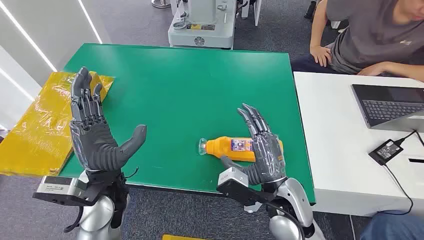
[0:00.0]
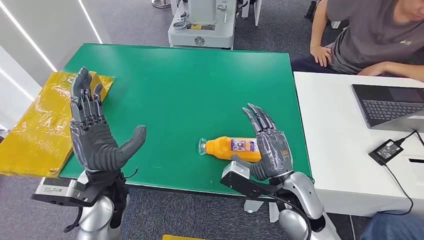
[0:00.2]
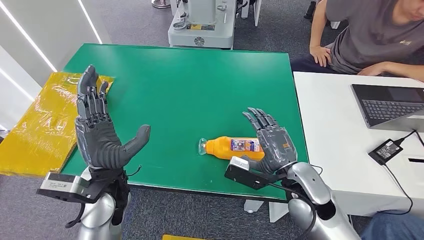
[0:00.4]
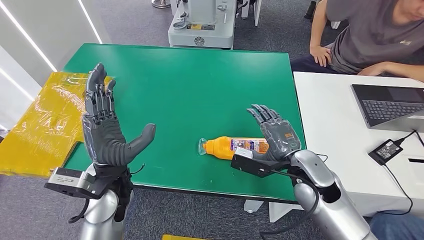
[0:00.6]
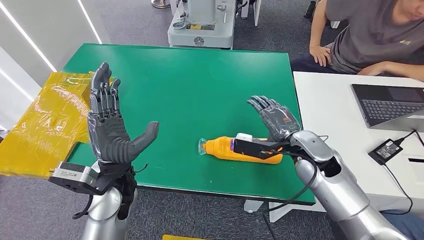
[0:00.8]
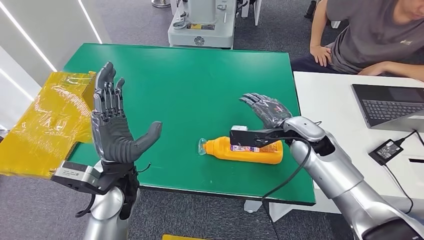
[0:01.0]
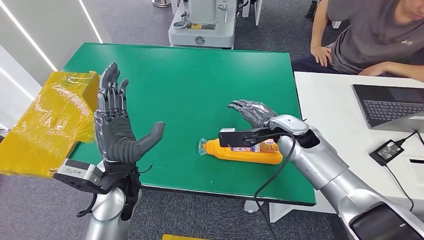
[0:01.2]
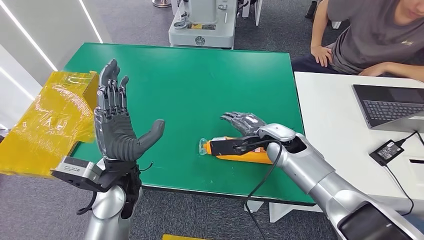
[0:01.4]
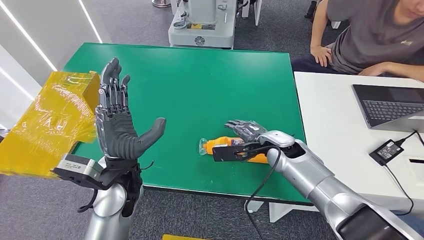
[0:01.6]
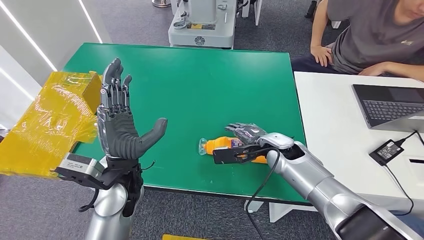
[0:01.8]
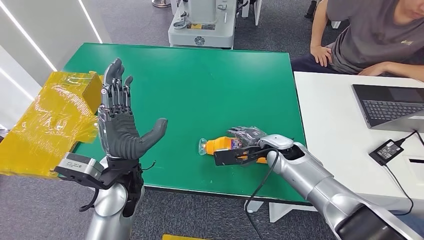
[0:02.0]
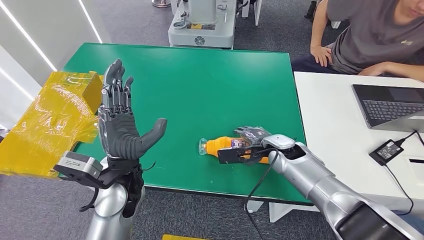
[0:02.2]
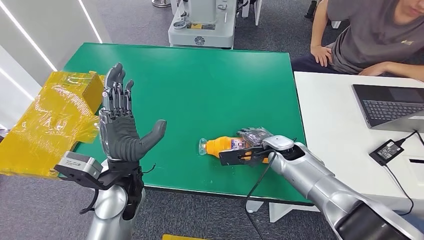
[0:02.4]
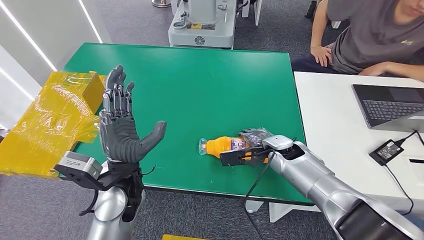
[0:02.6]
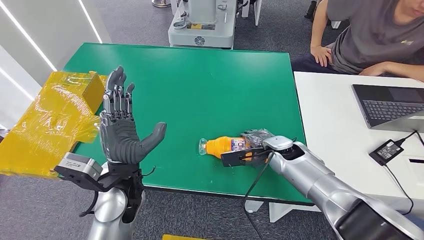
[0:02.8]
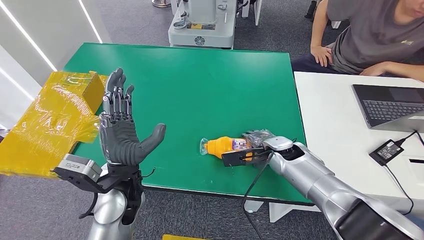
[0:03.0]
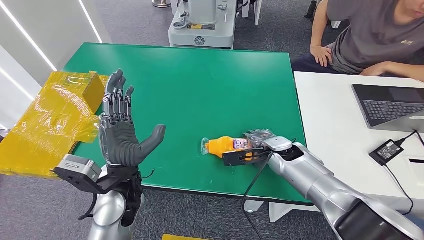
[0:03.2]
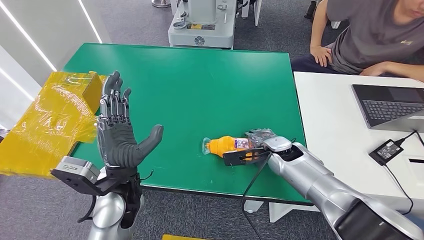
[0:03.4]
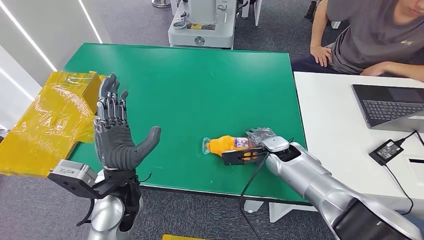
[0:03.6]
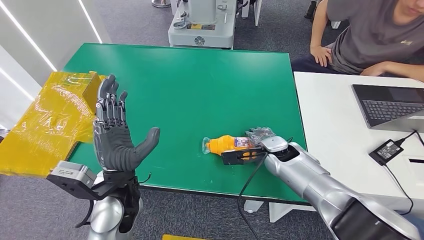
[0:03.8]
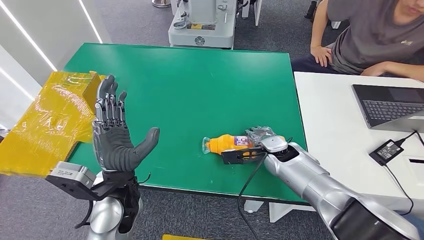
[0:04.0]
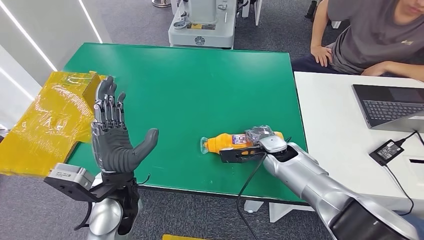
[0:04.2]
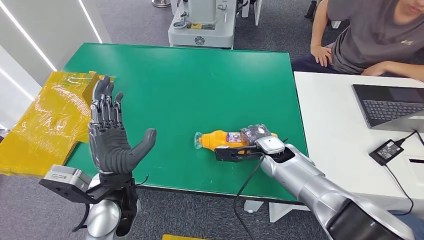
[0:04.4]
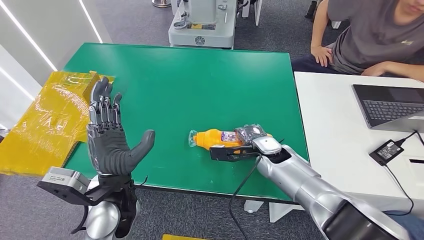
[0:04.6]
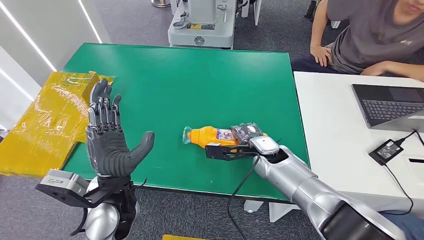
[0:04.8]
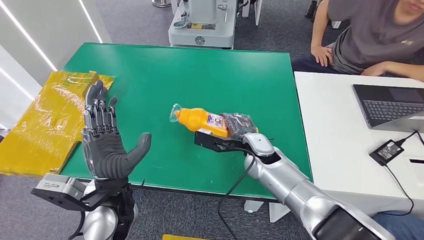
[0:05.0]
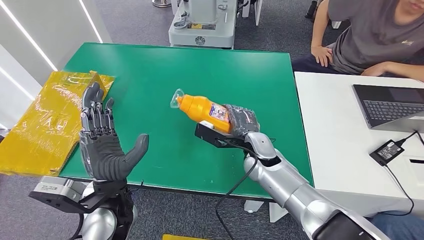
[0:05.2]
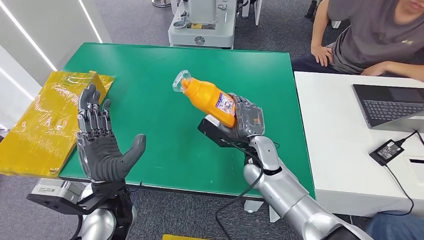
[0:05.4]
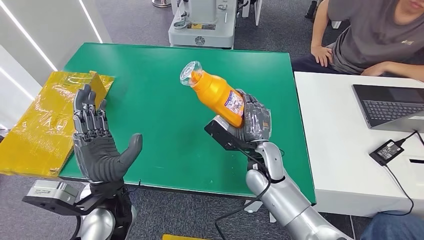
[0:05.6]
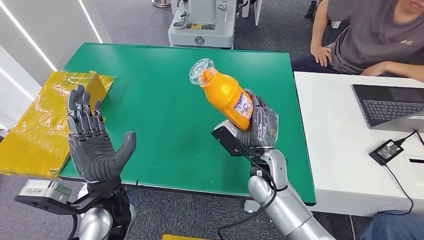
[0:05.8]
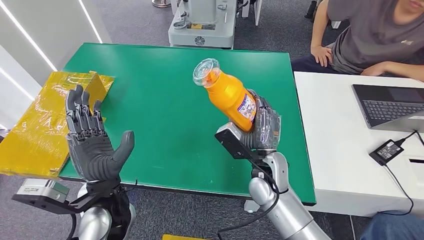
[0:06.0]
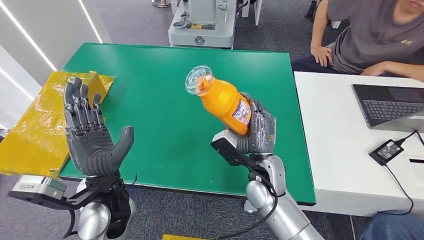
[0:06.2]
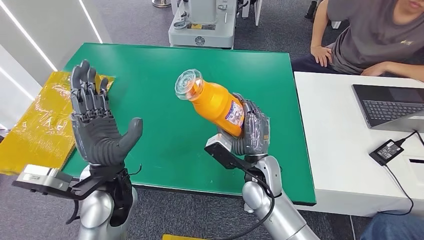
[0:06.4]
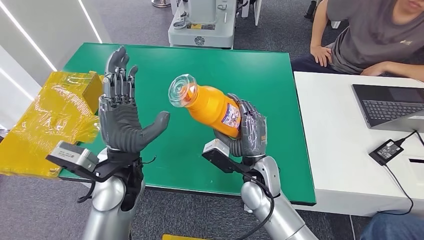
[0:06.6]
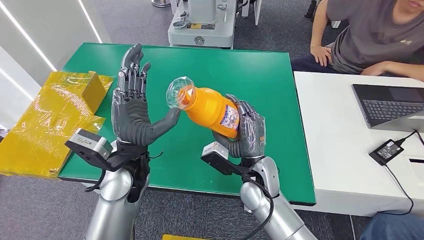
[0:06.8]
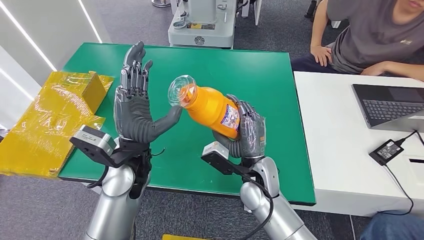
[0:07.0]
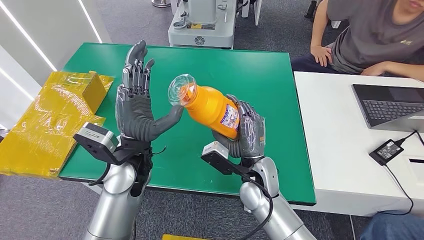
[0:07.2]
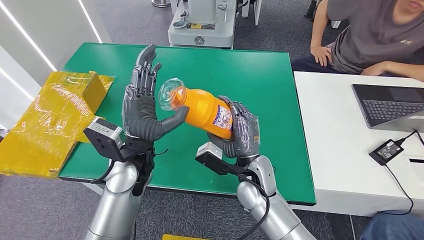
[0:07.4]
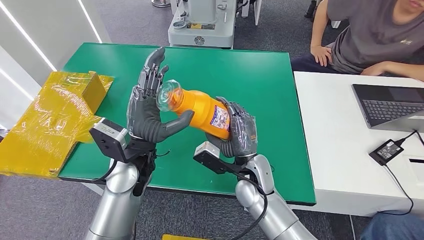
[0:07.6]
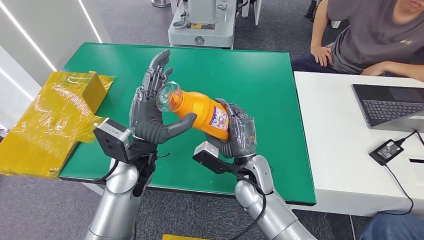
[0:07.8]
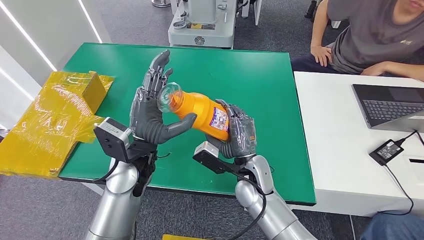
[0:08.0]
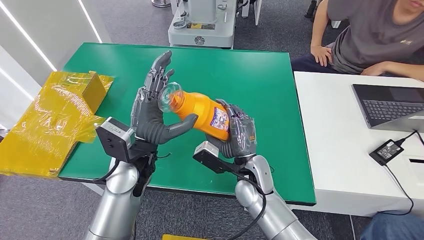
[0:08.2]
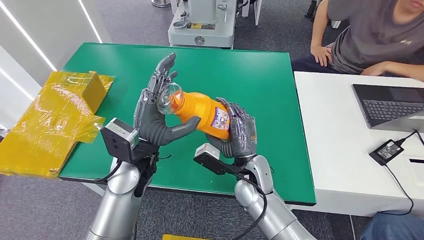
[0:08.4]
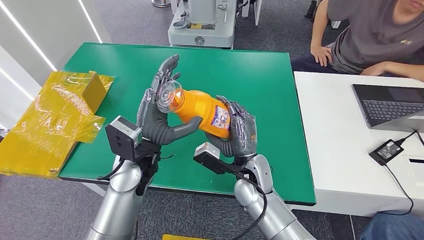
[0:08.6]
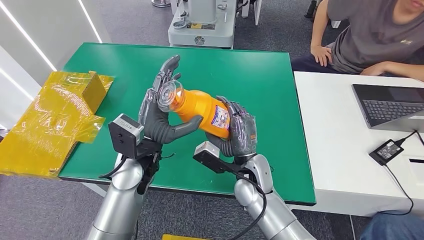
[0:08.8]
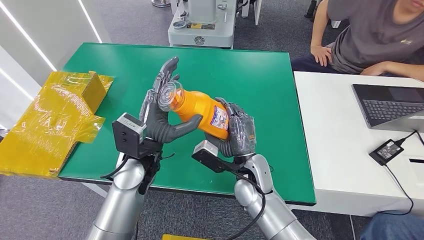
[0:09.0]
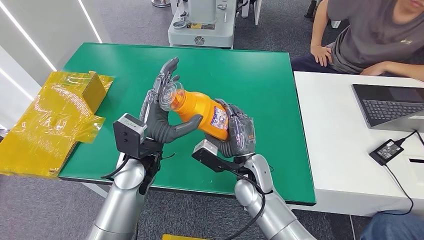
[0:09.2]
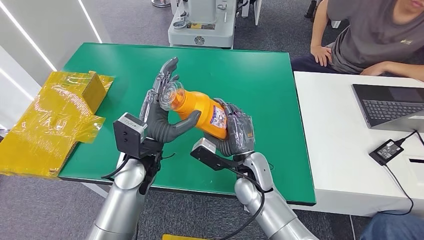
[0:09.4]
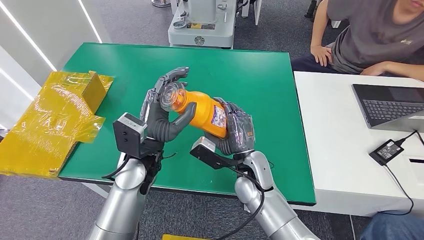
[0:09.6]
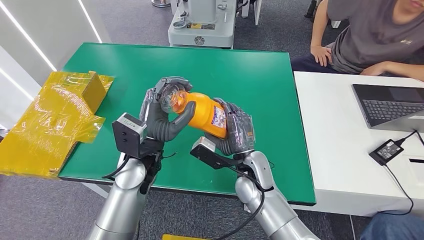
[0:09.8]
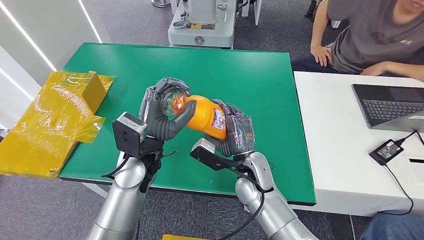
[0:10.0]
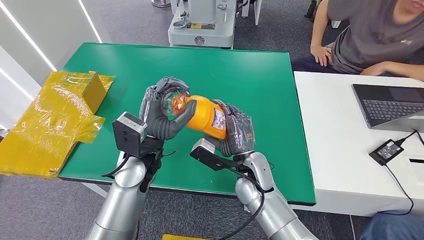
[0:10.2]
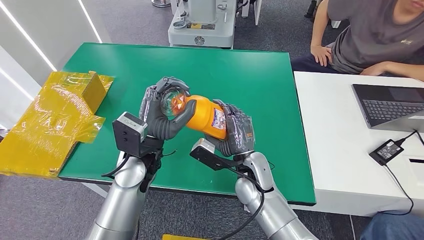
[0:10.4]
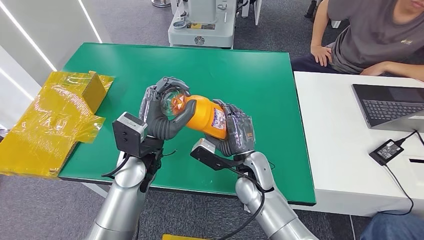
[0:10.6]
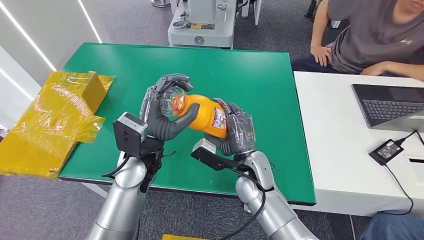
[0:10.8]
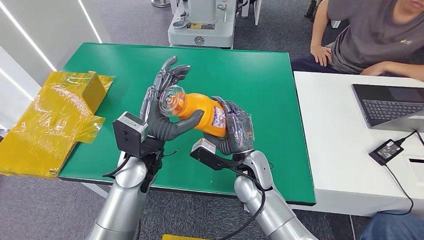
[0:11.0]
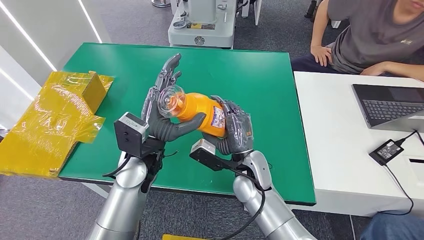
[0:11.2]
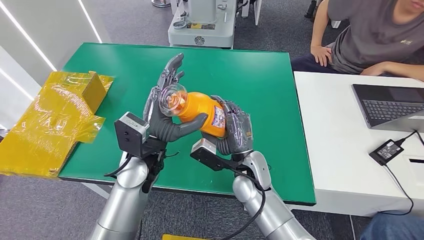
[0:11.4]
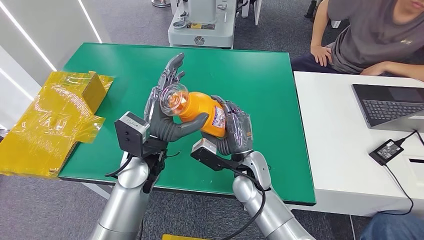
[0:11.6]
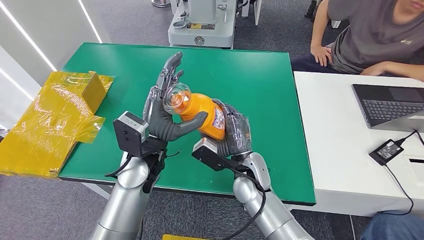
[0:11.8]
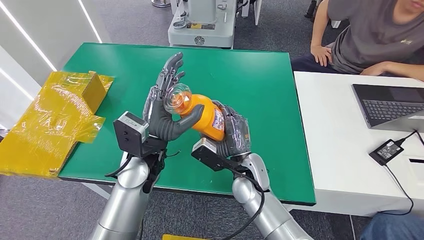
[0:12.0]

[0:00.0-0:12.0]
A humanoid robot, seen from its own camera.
Step, 0:00.0 to 0:06.2: Pick up the bottle from the table.
0:03.0 to 0:04.4: There are only small adjustments of the hands.
0:04.4 to 0:06.0: The right hand moves to the left and backward, some 10 cm.
0:07.6 to 0:12.0: The hands move only a little.

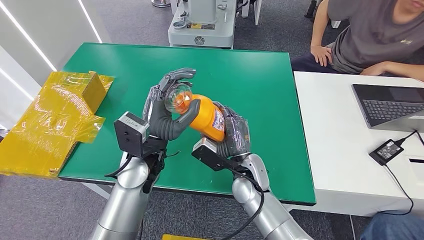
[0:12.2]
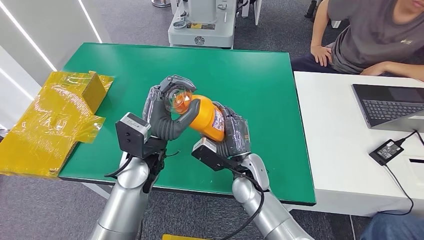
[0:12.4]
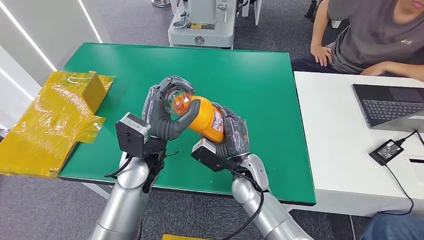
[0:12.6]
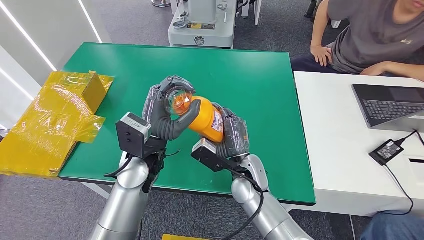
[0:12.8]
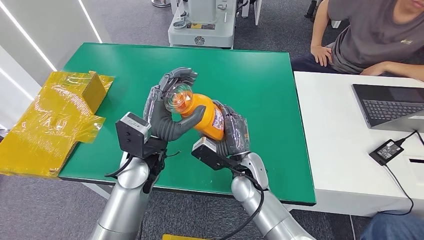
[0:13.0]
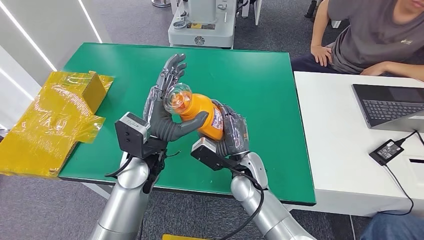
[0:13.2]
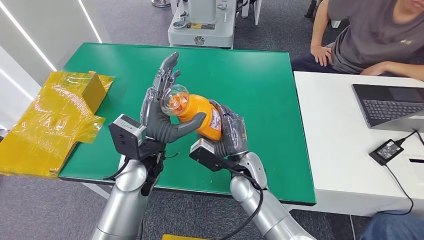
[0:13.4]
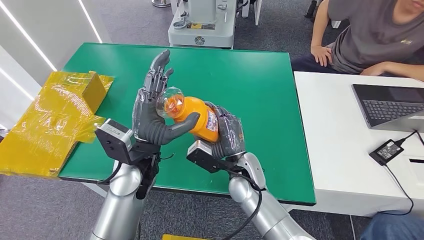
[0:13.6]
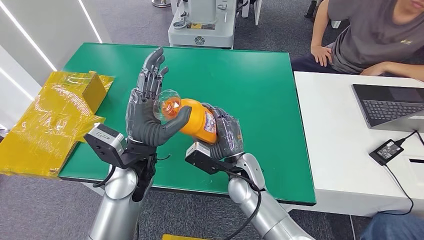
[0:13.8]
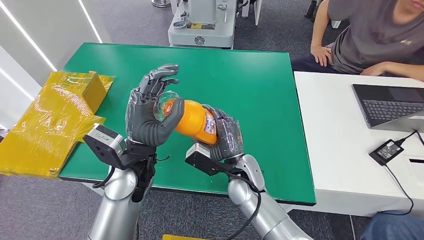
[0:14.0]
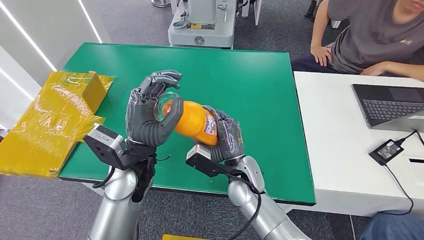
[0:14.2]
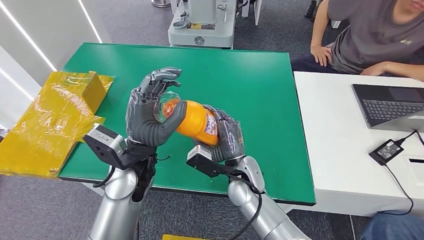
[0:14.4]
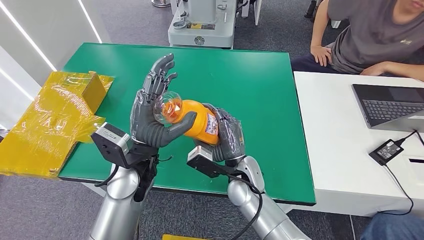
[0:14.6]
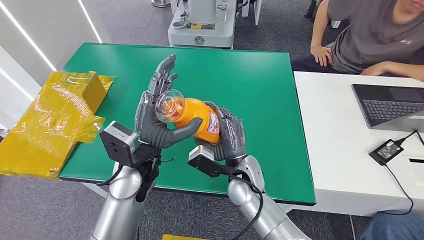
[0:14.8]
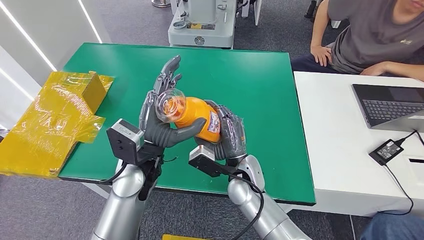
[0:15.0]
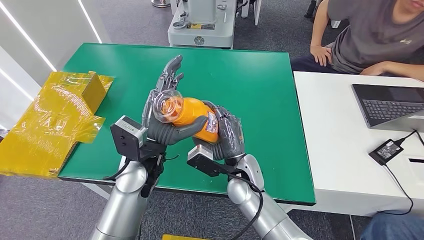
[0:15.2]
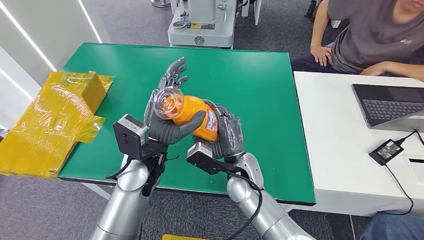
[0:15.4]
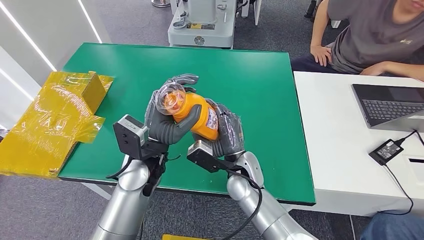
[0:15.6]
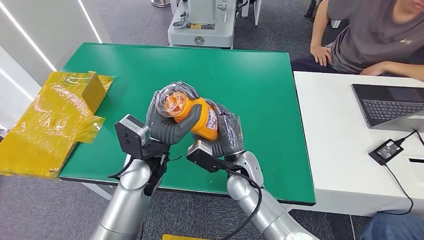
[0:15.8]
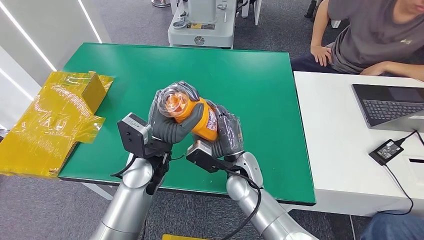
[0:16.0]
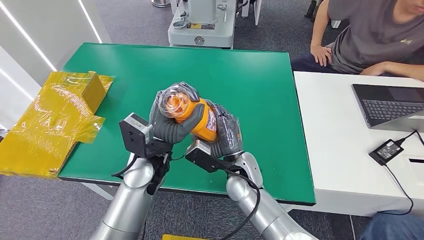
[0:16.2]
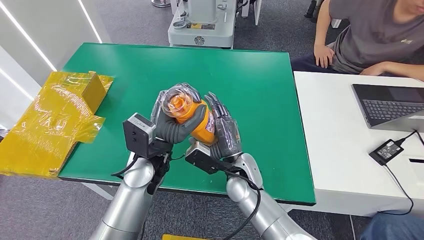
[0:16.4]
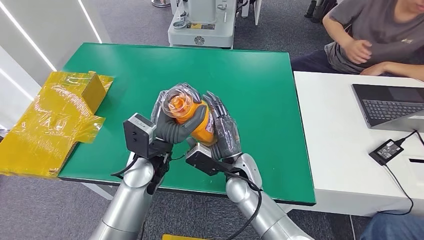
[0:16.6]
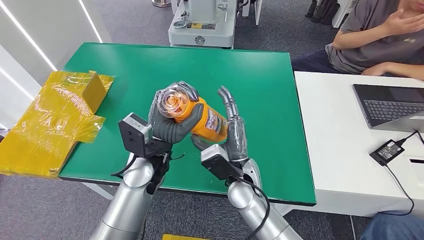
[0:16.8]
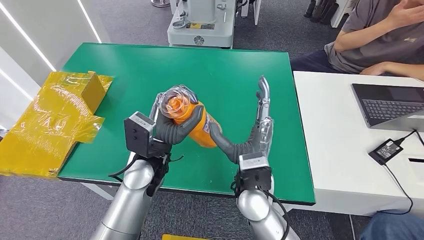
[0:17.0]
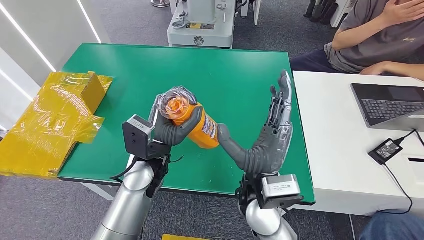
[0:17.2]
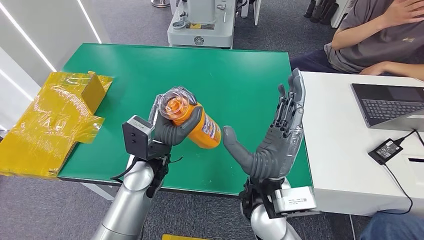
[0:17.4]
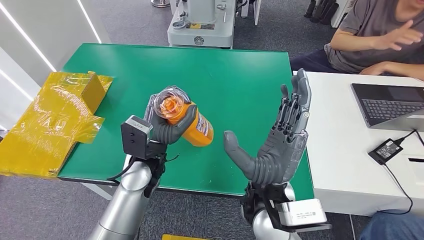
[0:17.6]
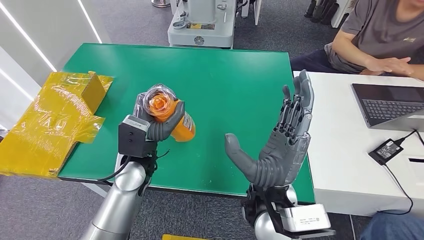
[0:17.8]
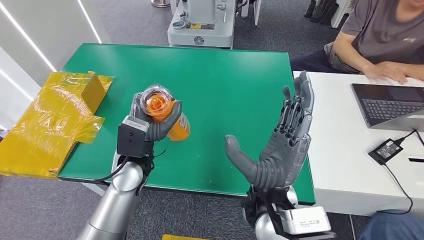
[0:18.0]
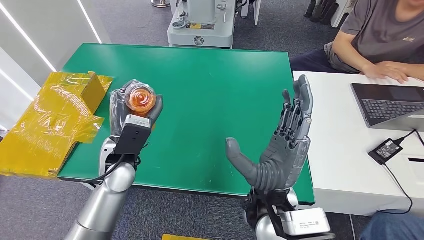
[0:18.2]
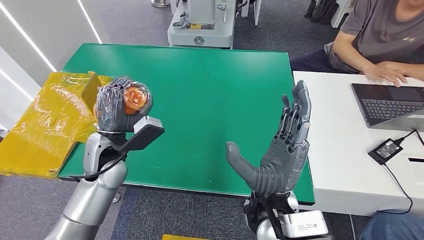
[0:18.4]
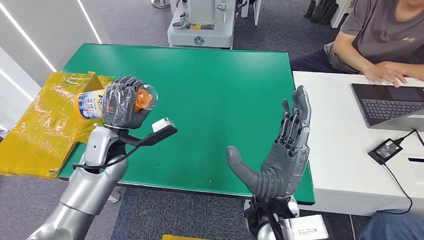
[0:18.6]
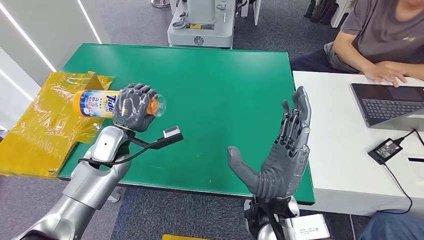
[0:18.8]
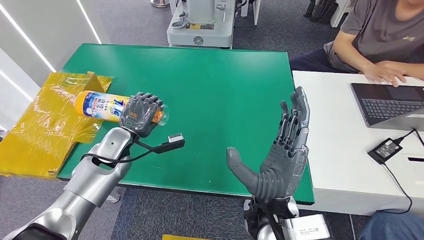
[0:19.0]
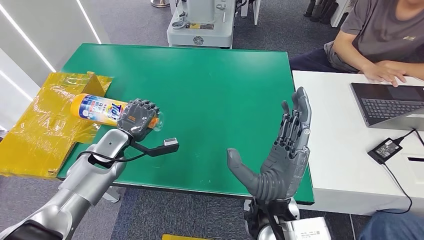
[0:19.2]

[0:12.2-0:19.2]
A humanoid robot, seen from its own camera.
0:12.2 to 0:13.6: Both hands stay put.
0:13.6 to 0:16.4: There are only small adjustments of the hands.
0:16.4 to 0:17.8: The right hand travels upward and backward by approximately 15 cm.
